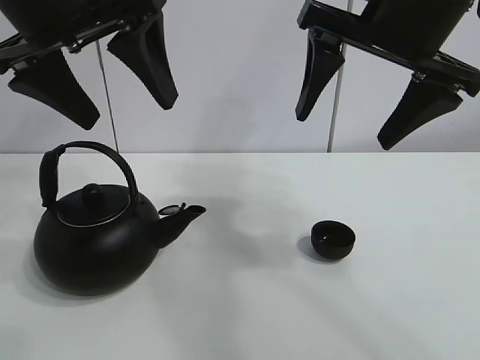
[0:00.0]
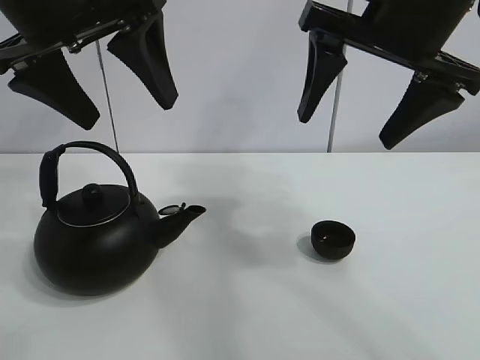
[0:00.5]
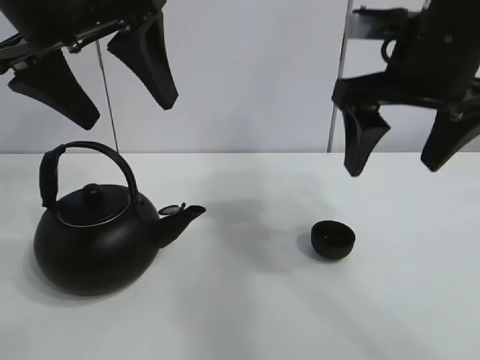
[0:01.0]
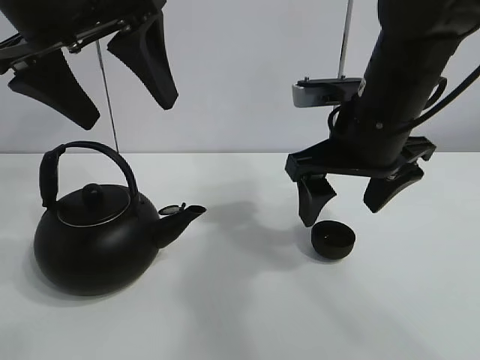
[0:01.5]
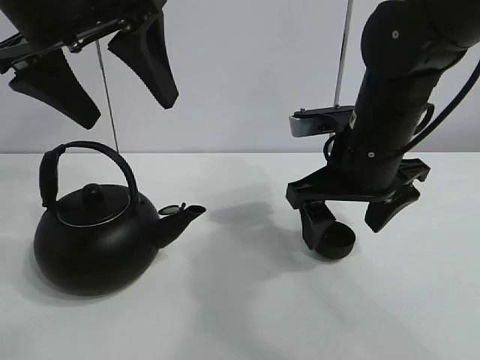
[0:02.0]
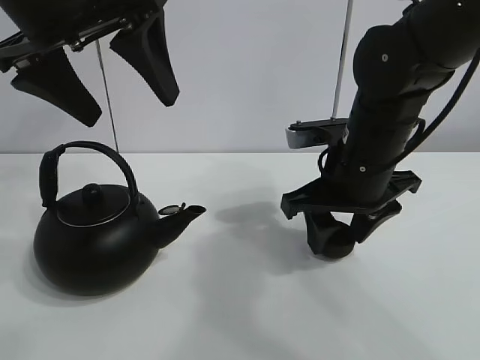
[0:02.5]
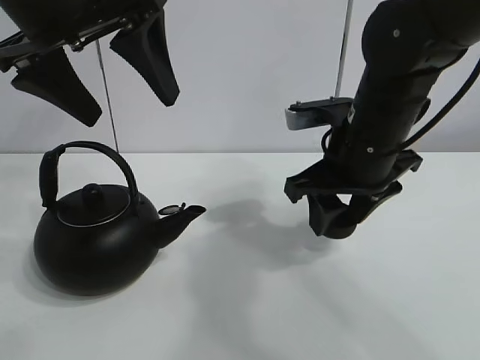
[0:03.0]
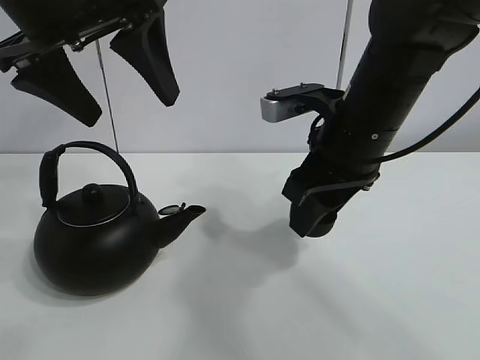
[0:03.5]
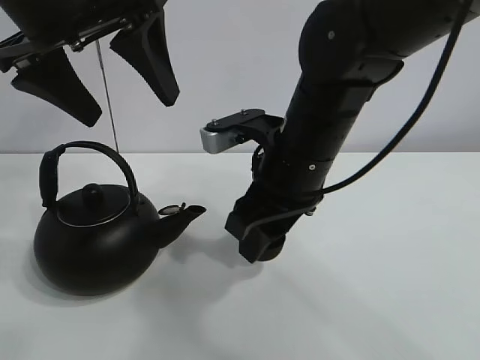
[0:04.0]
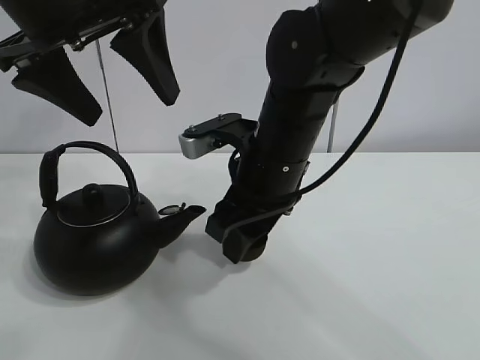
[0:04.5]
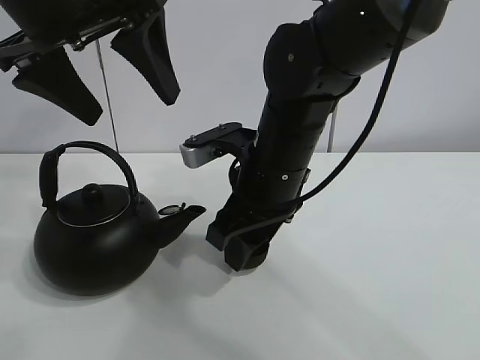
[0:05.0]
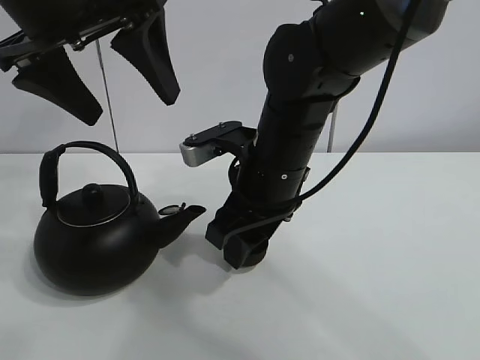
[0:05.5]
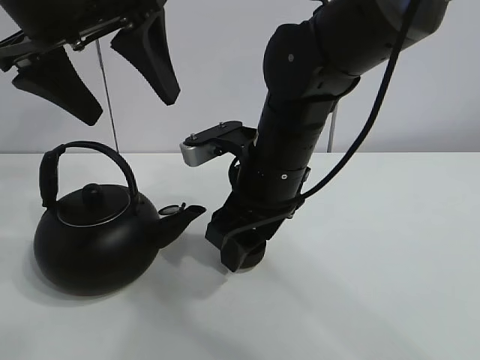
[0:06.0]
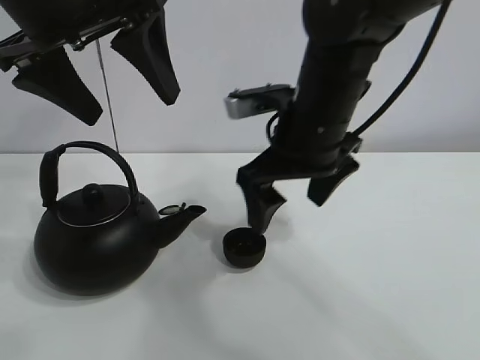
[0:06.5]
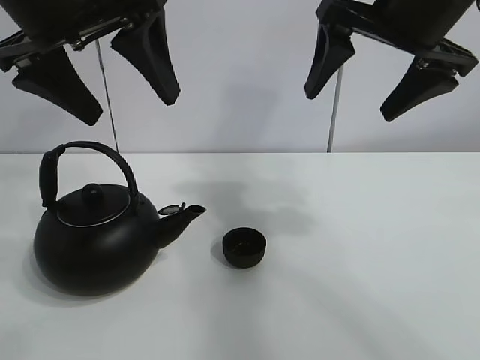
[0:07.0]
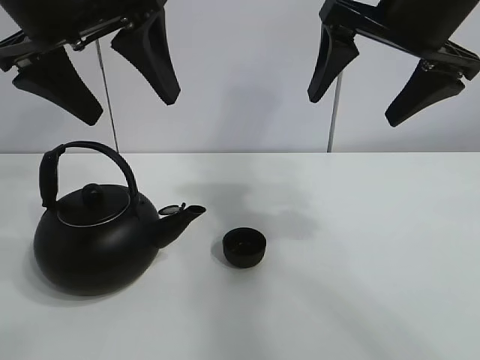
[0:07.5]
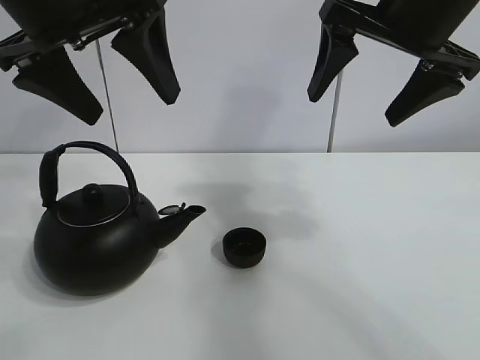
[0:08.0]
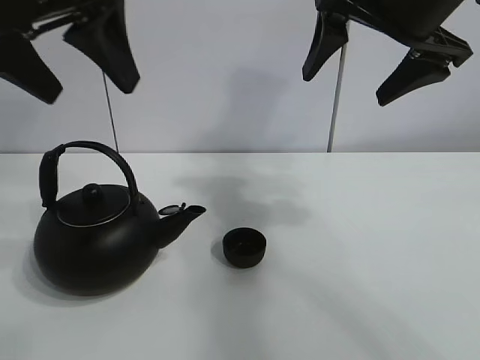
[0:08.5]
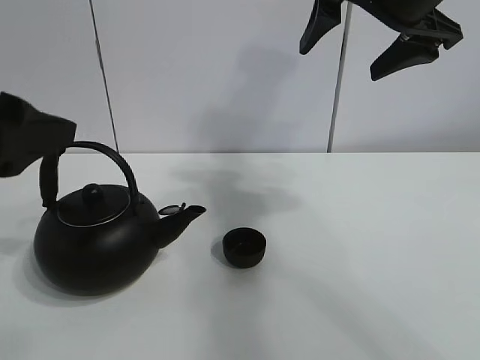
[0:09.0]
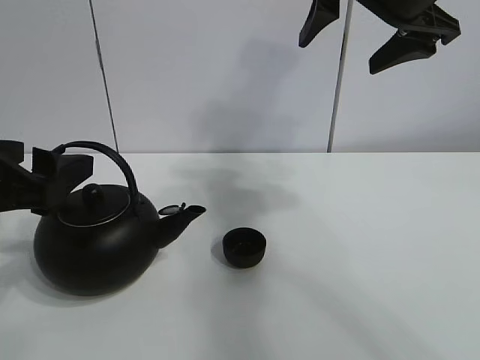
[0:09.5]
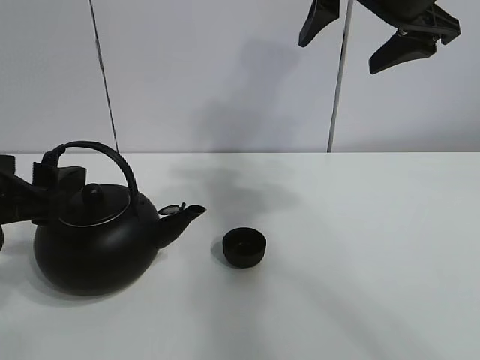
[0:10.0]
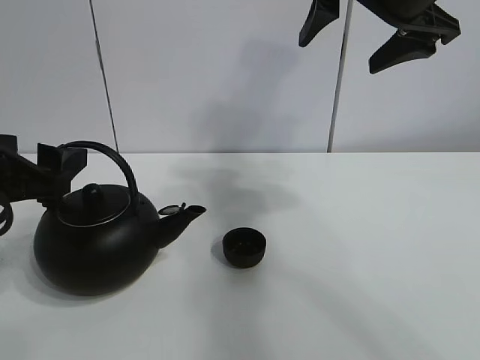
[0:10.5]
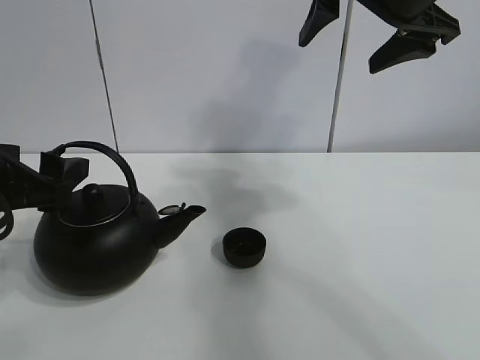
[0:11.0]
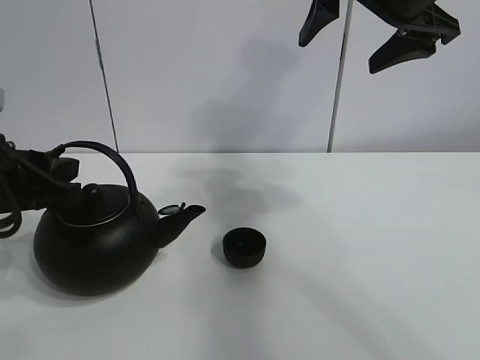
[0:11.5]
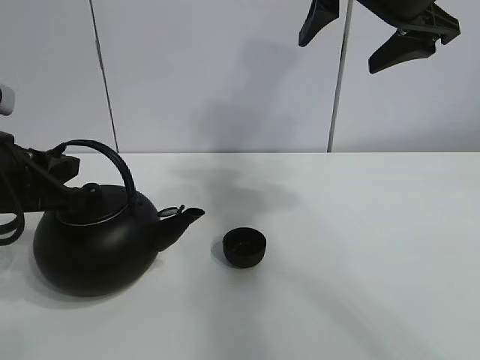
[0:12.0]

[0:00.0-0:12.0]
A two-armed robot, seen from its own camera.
Task of the whole recording: pour tea into the teacup.
Step, 0:00.0 to 0:02.5: Pick up the teacup with the right gripper.
Step, 0:03.0 to 0:06.0: Place the teacup in the center of view with the right gripper.
Step, 0:06.5 to 0:11.5: Pick up the teapot with the left gripper.
0:02.0 to 0:04.0: The right gripper shifts roughly 5 cm to the left, and closes up.
0:04.0 to 0:06.0: The grippers make only small movements.
0:06.0 to 0:08.0: The right gripper moves upward and to the right, approximately 20 cm, and opens its fingers.
0:08.0 to 0:10.0: The left gripper moves downward and to the left, some 20 cm.
0:10.0 to 0:12.0: The left gripper closes.

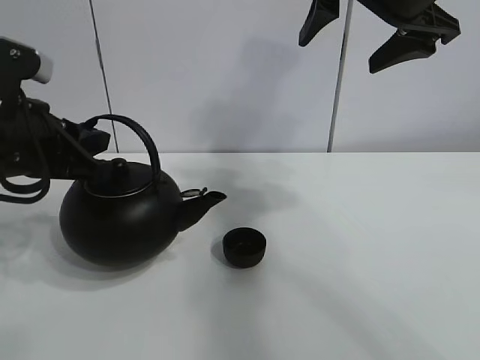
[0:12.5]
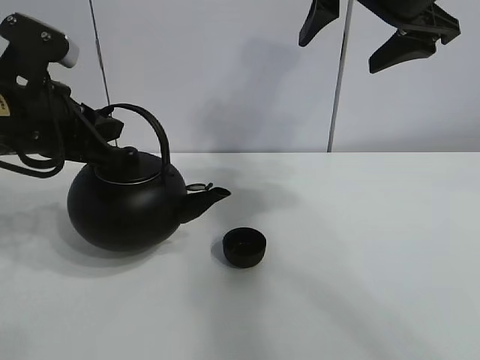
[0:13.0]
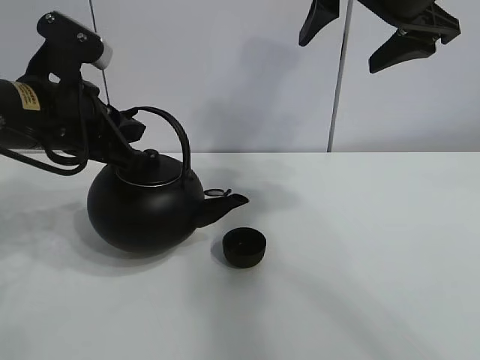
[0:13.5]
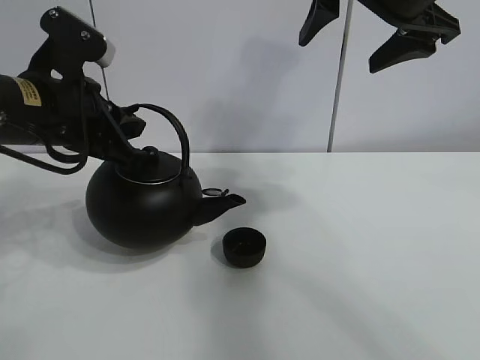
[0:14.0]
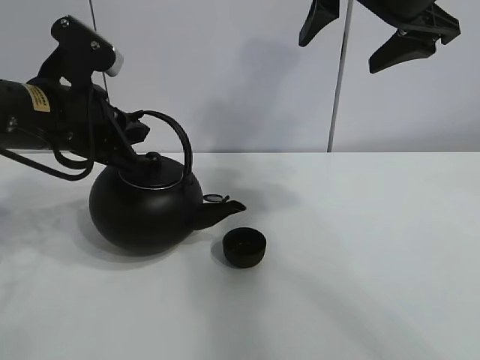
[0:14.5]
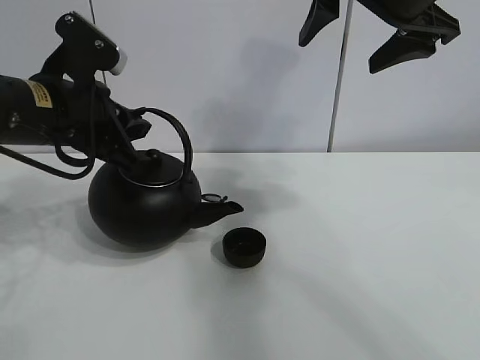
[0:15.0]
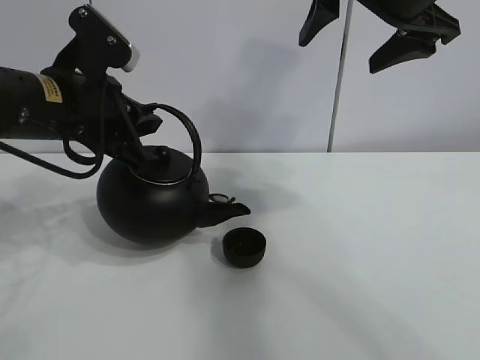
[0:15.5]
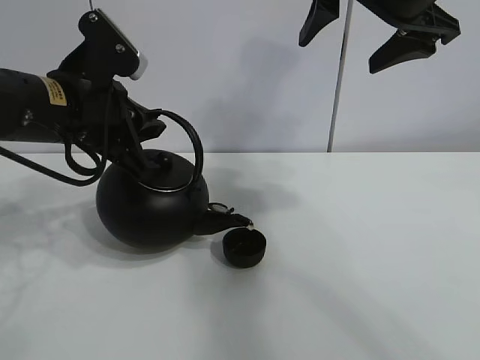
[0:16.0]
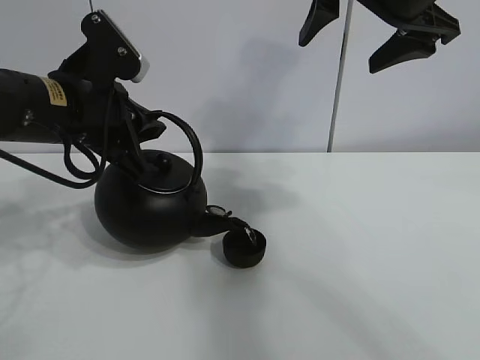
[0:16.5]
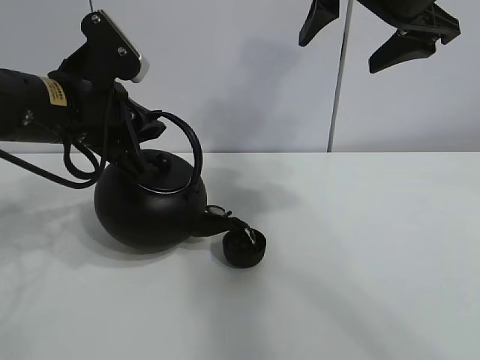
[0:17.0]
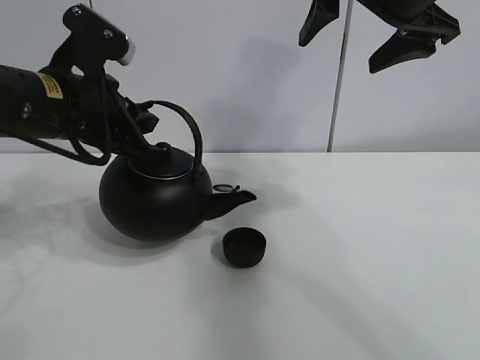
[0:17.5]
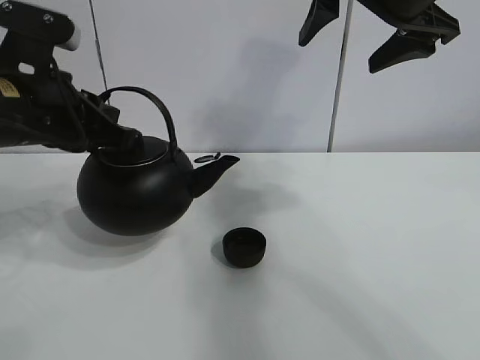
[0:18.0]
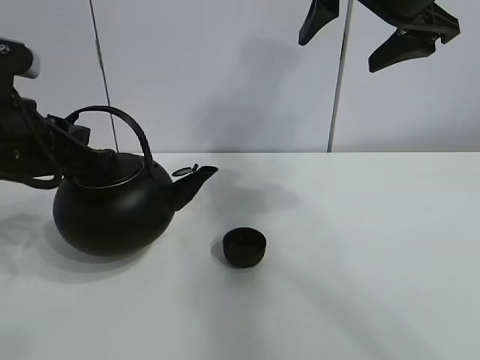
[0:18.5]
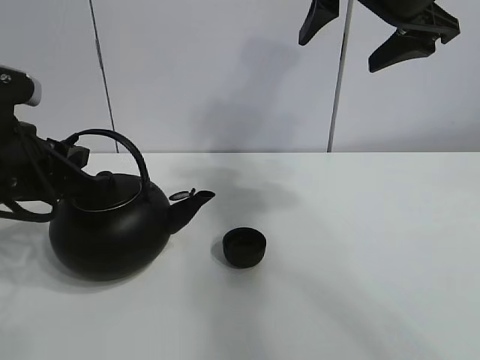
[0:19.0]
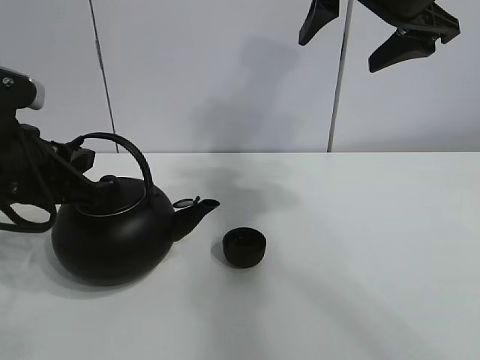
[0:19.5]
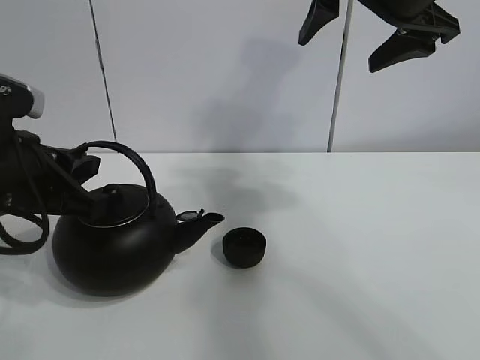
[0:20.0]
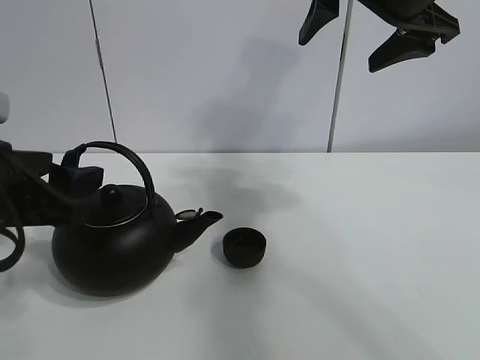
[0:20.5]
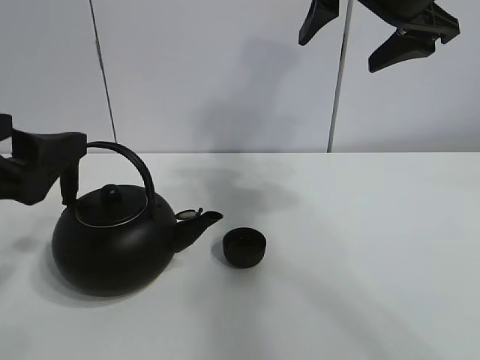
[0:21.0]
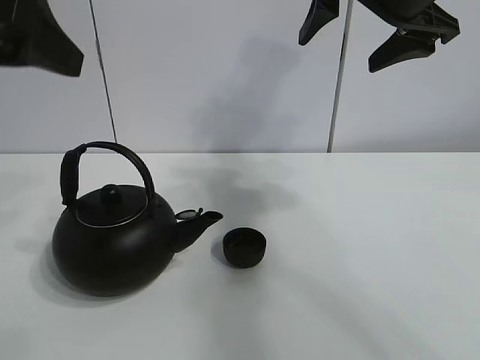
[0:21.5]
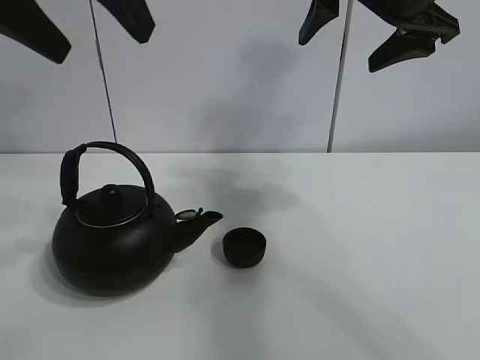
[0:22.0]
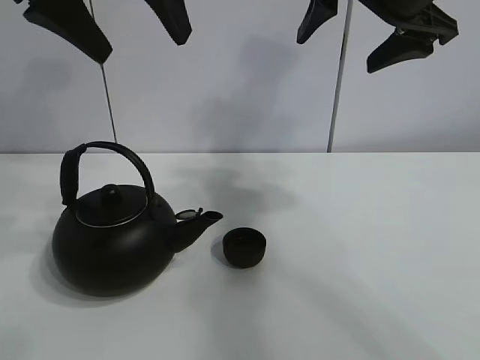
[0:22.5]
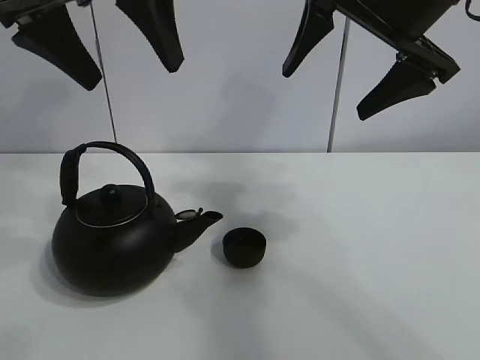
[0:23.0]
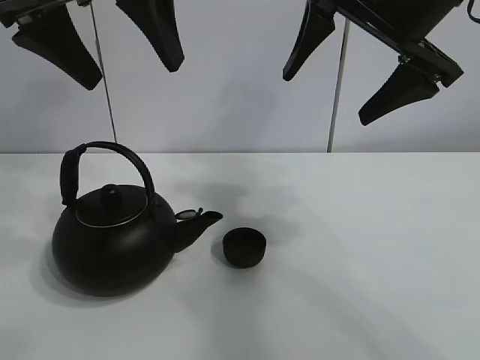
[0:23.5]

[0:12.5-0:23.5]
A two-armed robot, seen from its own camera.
Task of the whole recording: pour tea into the teacup.
Step, 0:12.5 to 0:17.0: Pour tea into the teacup with the left gripper.
0:12.5 to 0:14.5: The left gripper moves some 5 cm.
0:14.5 to 0:16.0: There are only small adjustments of the grippers.
0:18.0 to 0:20.0: The left gripper moves approximately 5 cm.
0:20.0 to 0:21.5: The left gripper is displaced upward by about 15 cm, and opens its fingers.
0:21.5 to 0:23.5: The left gripper heads forward and to the right, covering about 10 cm.
